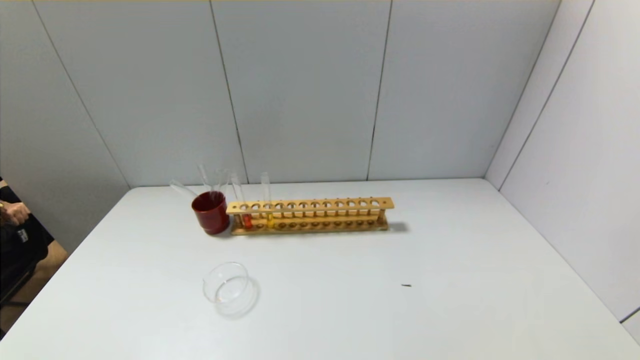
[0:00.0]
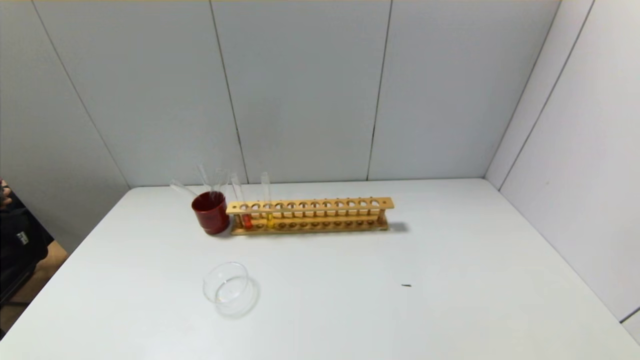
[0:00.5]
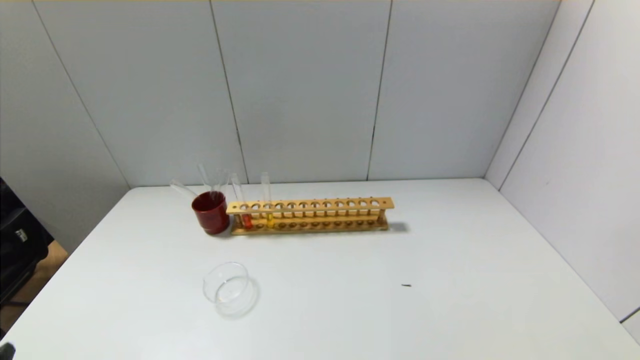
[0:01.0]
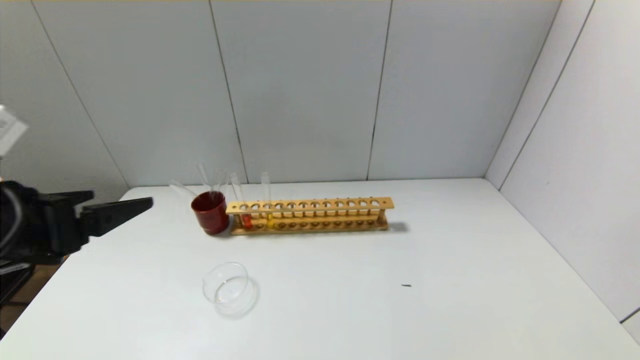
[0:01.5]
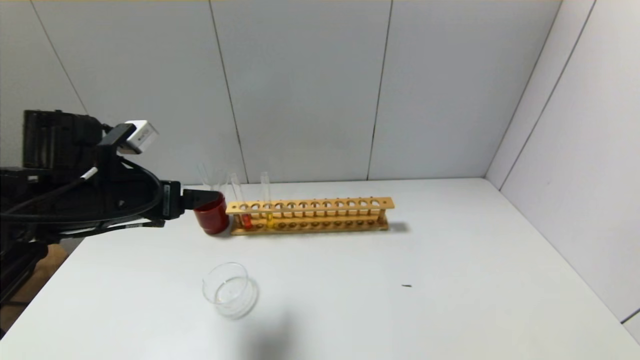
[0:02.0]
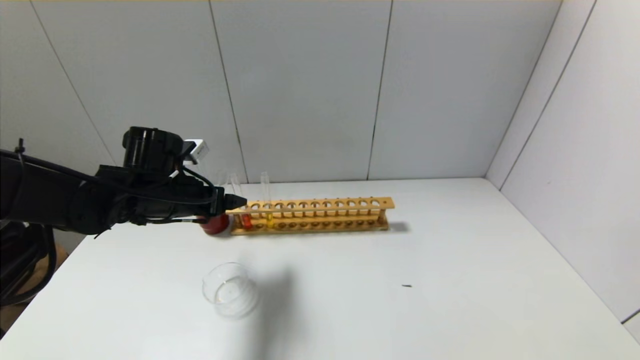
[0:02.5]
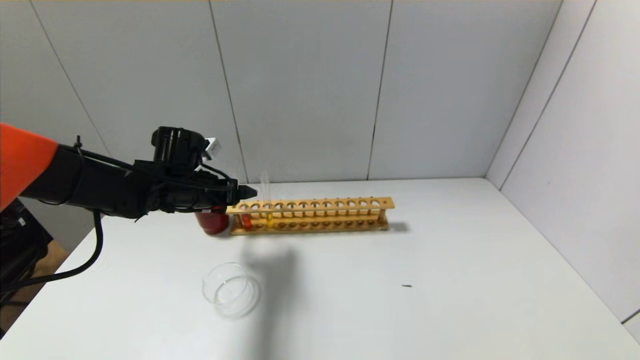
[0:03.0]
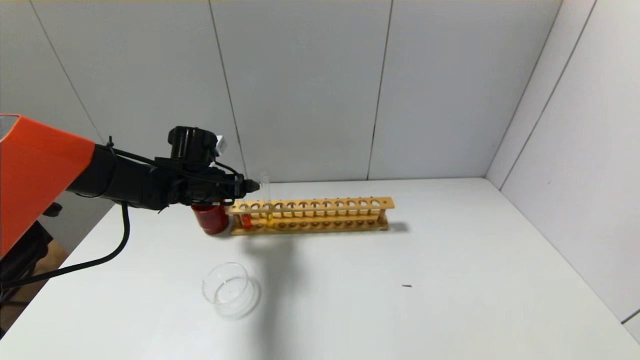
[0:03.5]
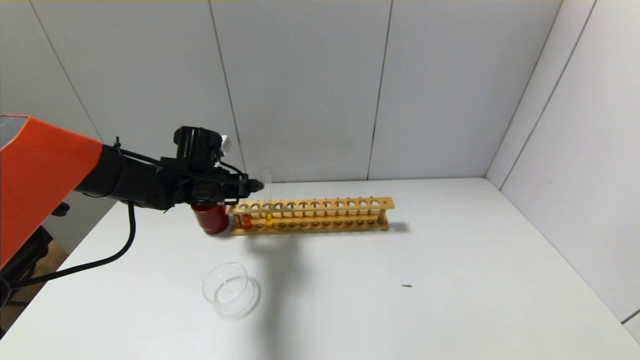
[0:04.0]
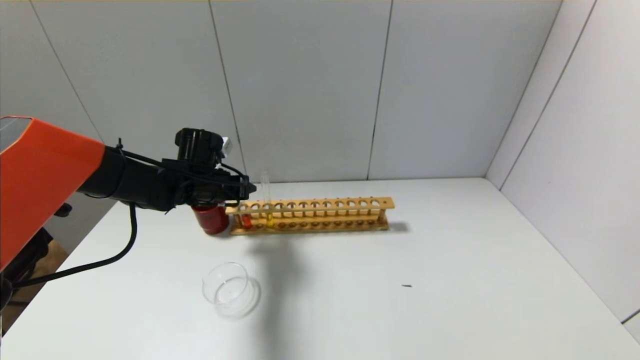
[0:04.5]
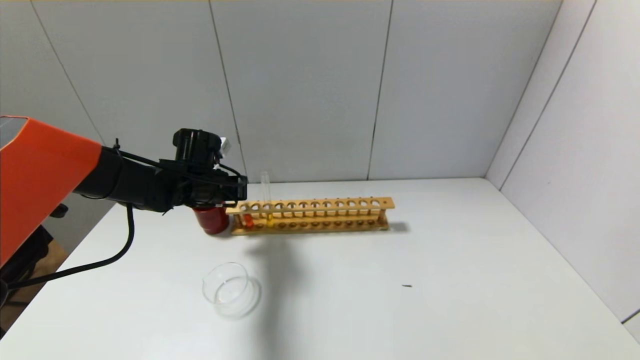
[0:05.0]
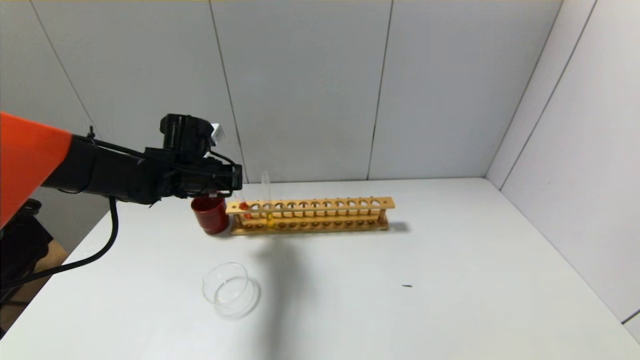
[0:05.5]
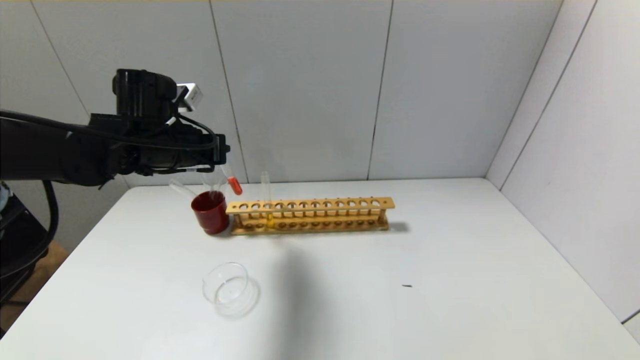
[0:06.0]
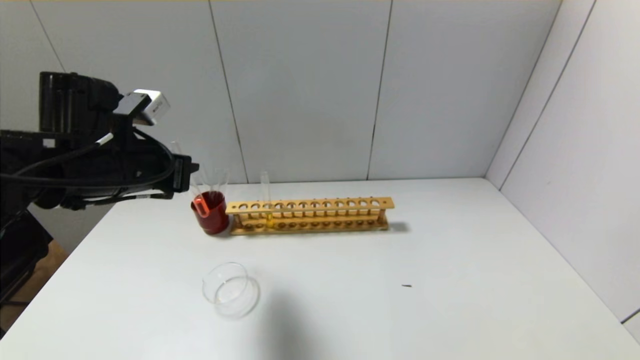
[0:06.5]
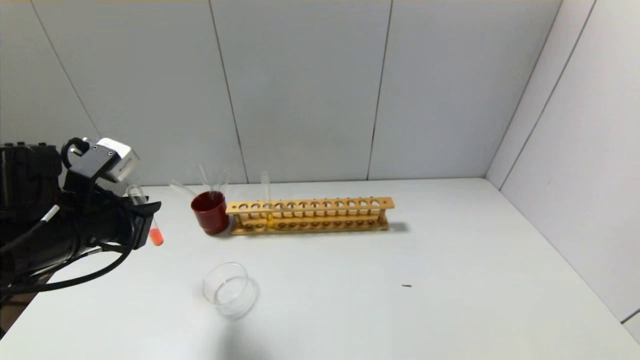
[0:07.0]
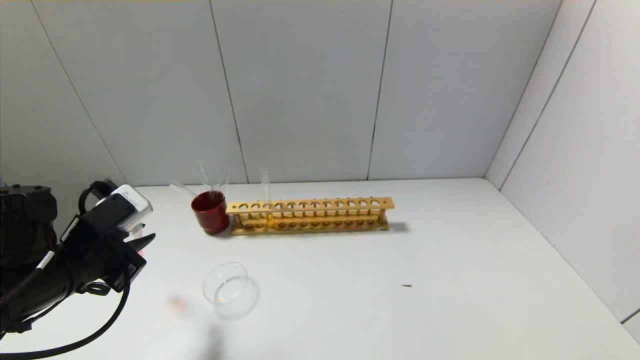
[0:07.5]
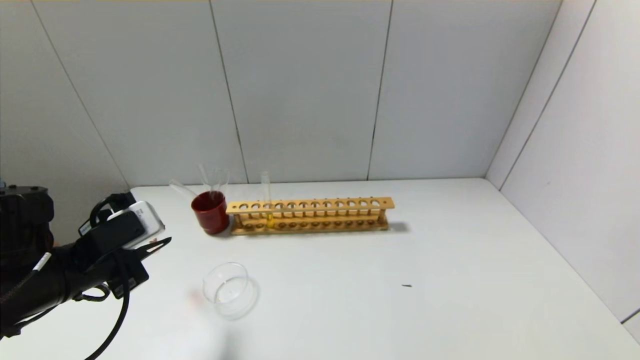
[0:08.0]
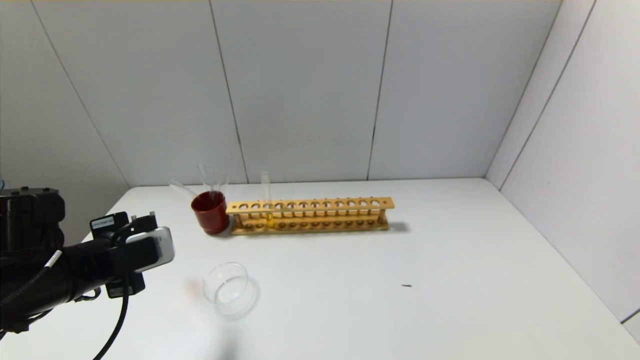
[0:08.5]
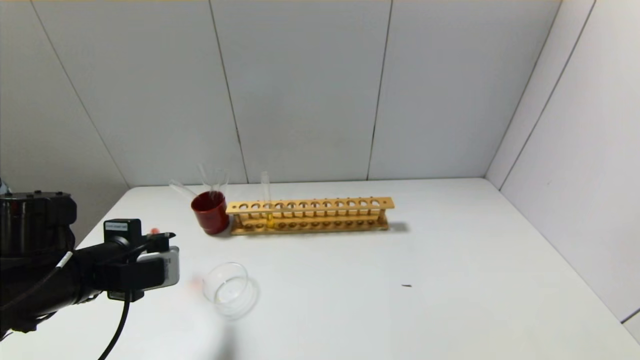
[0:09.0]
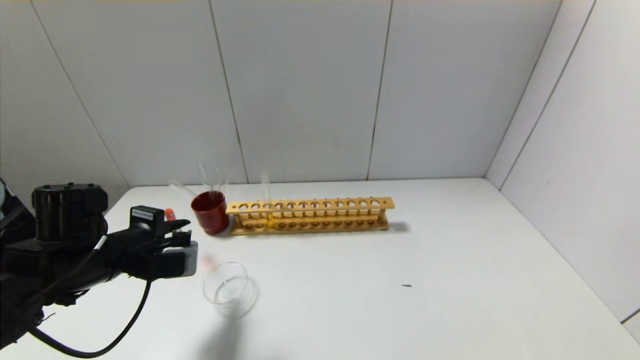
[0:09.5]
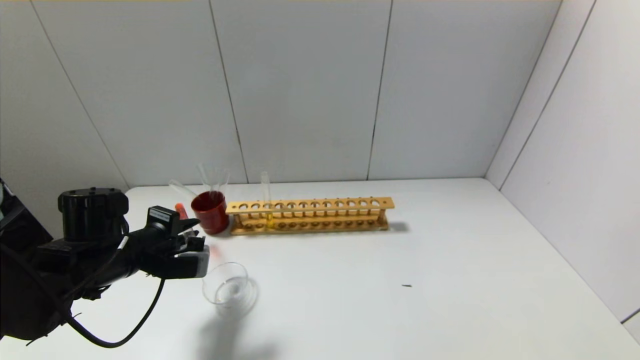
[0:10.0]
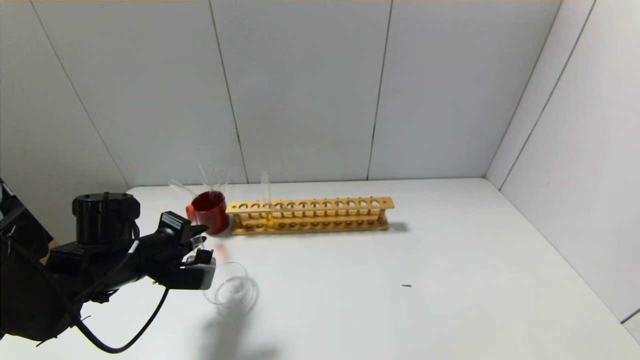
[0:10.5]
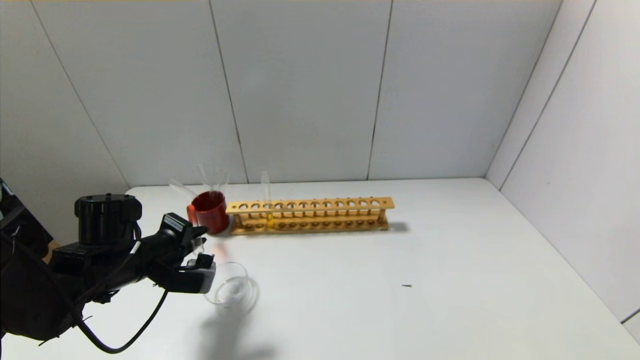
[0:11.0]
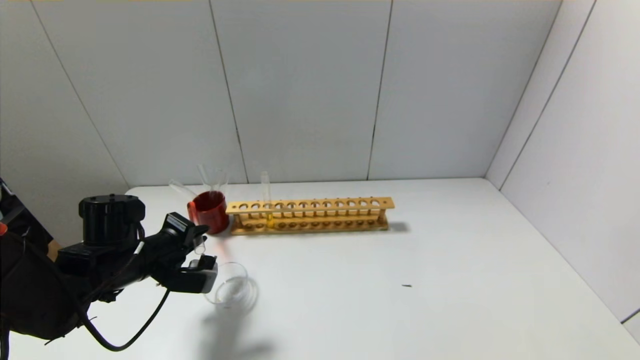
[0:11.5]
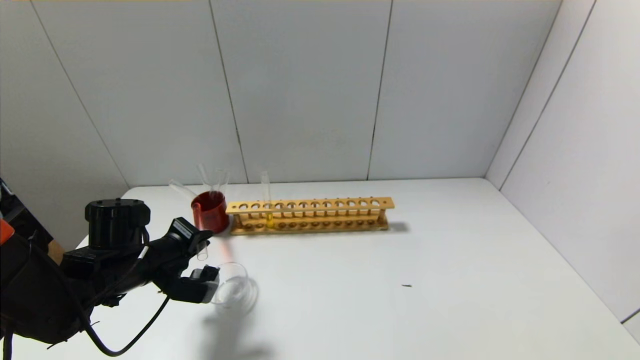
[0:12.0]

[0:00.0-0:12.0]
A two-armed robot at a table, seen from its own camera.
Step, 0:00.0 to 0:04.5: Grasp the red reagent with the left gripper.
0:00.0 to 0:02.0: The left gripper moves forward and upward, about 30 cm.
0:02.0 to 0:04.0: The left gripper travels forward and downward by some 15 cm.
0:04.0 to 0:06.0: The left gripper moves upward and backward, approximately 10 cm, and closes.
0:06.0 to 0:08.0: The left gripper is displaced backward and downward by roughly 15 cm.
0:08.0 to 0:10.0: The left gripper moves forward, roughly 5 cm.
0:10.0 to 0:12.0: There are only small adjustments of the grippers.

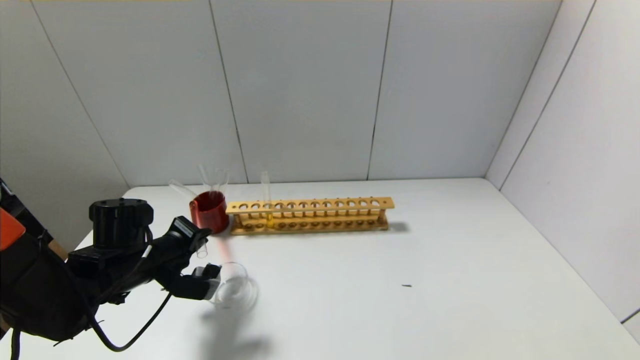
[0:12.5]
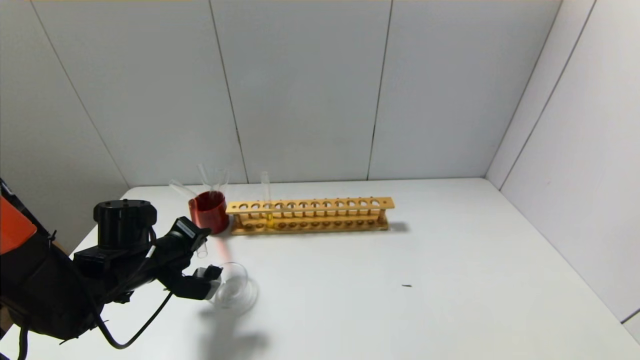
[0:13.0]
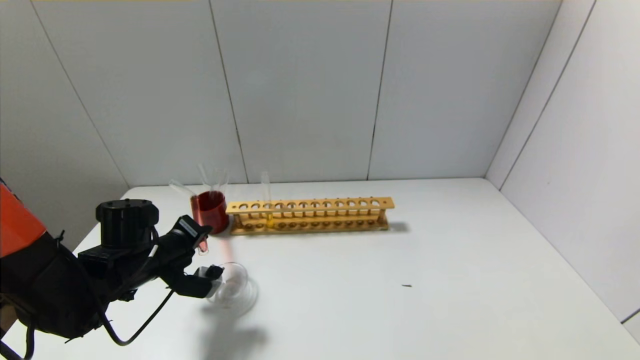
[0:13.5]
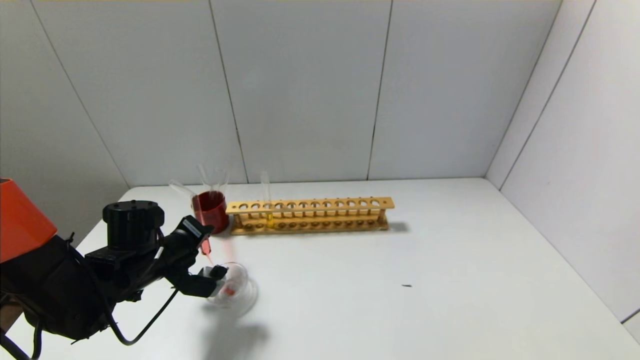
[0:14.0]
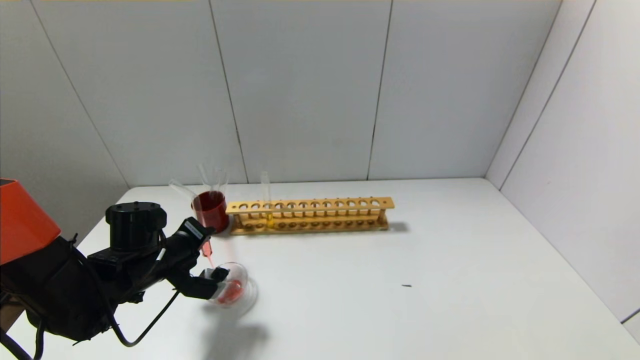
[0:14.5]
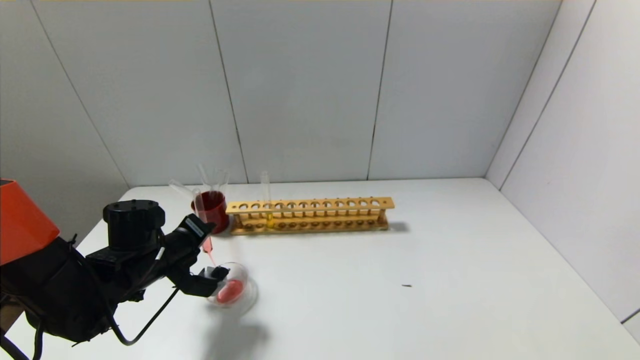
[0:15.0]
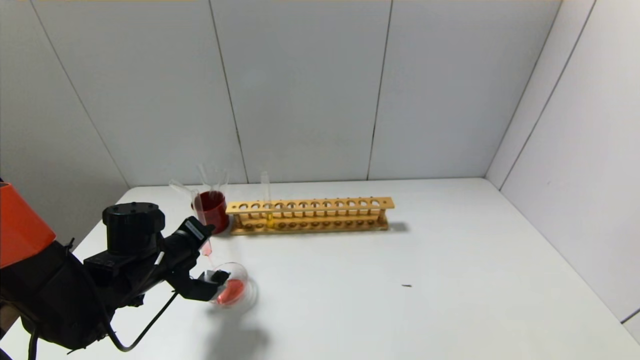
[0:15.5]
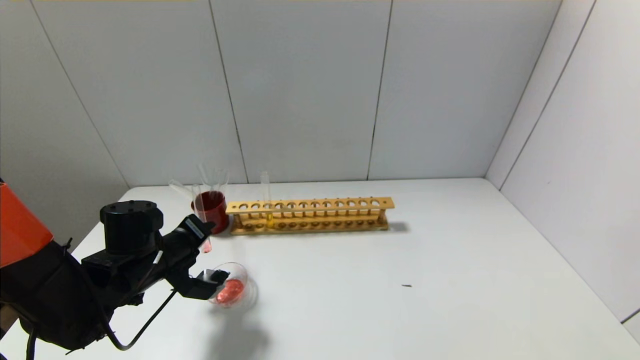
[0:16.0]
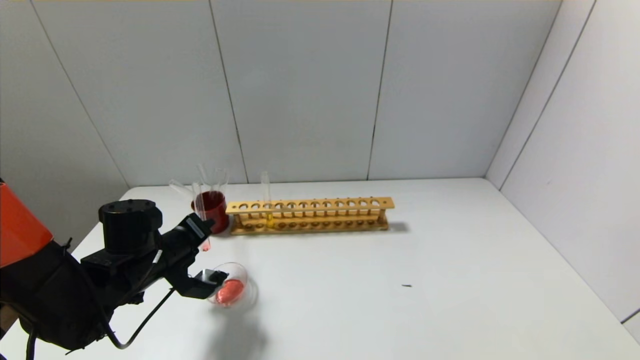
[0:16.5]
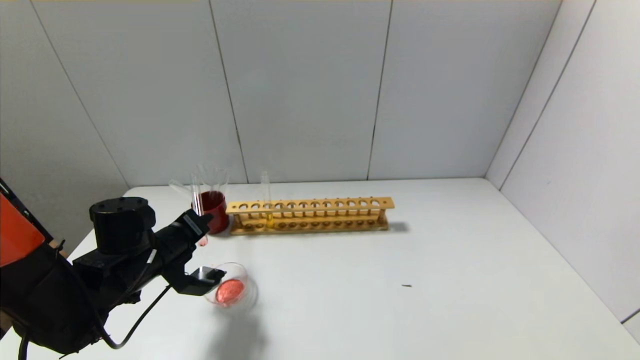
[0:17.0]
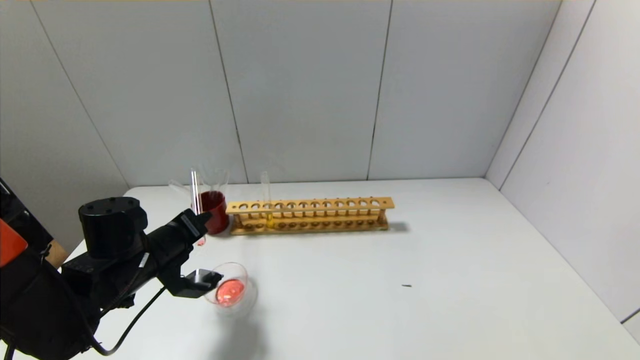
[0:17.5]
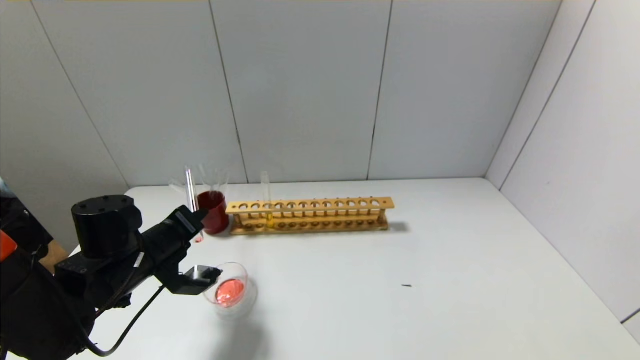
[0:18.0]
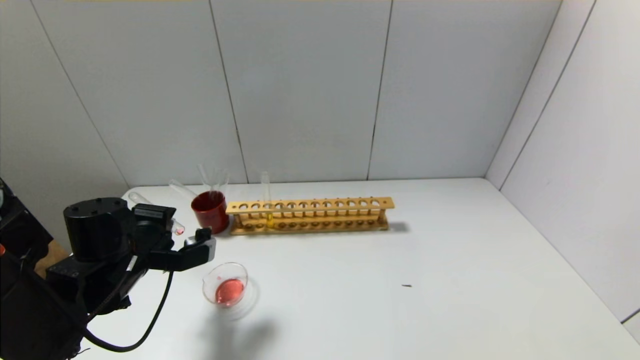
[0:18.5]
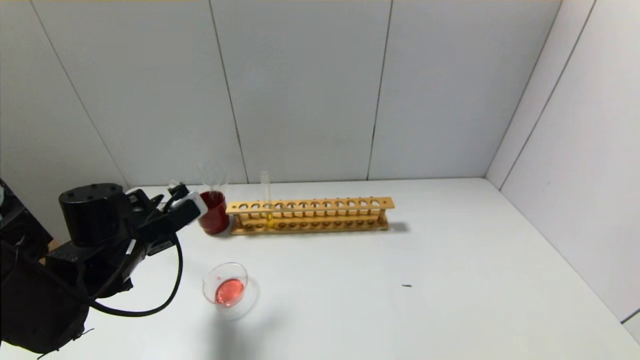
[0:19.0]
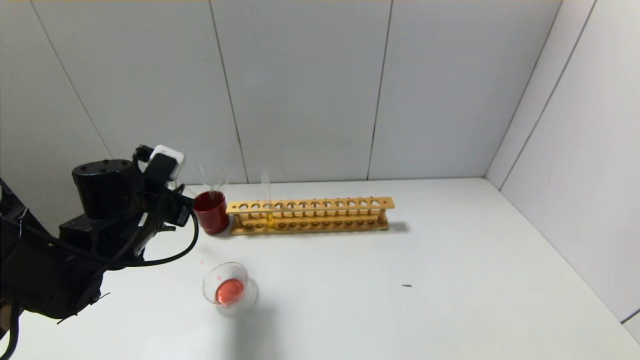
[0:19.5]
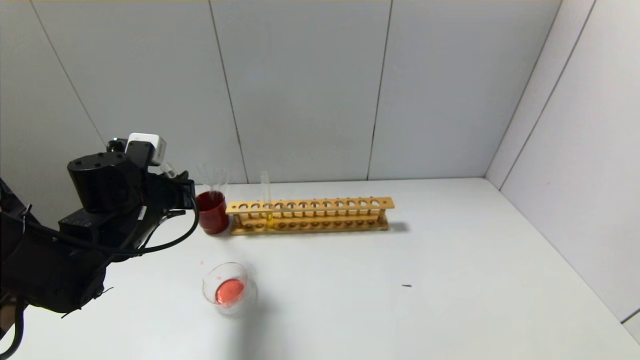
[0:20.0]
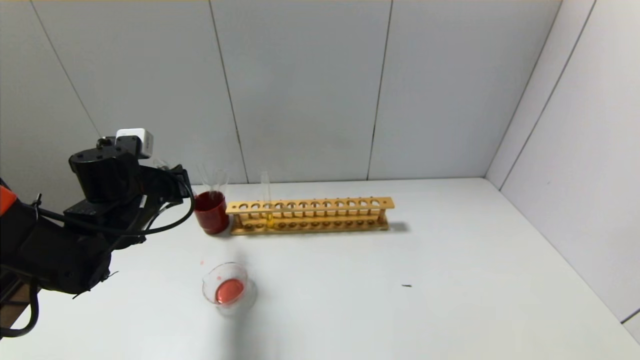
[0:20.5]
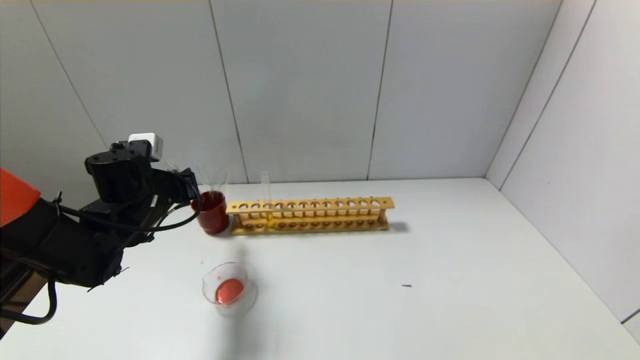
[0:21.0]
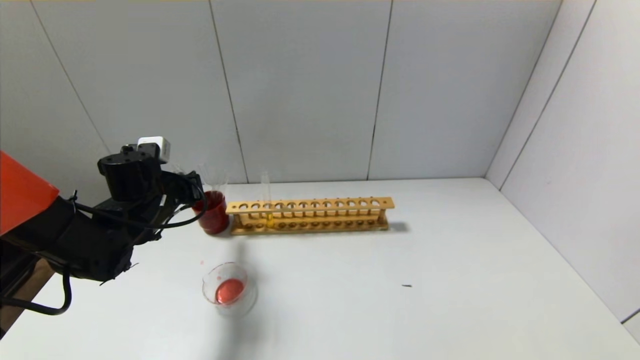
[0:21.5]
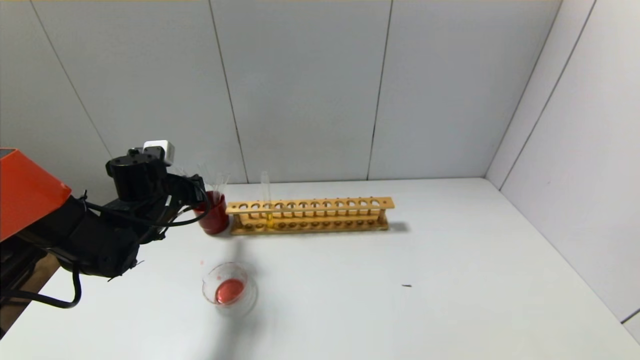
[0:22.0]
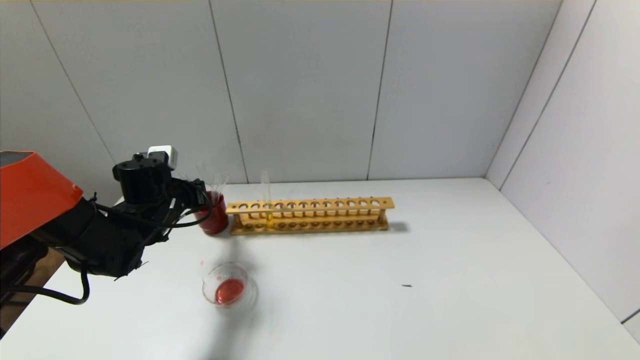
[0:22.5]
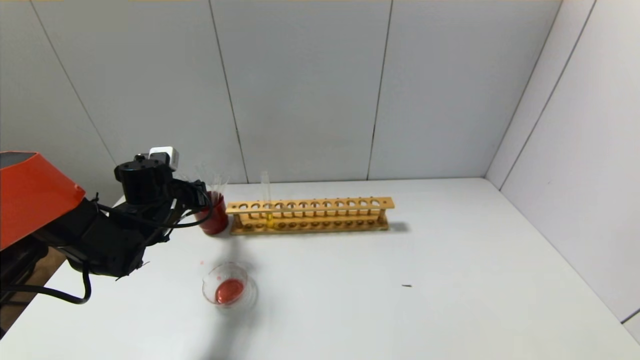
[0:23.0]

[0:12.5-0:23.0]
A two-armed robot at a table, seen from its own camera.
Step, 0:12.5 to 0:18.0: Pour the red reagent into the graduated cylinder with the left gripper.
0:12.5 to 0:16.5: There are only small adjustments of the grippers.
0:19.0 to 0:21.0: The left gripper moves forward, some 5 cm.
0:21.0 to 0:23.0: The grippers make only small movements.
